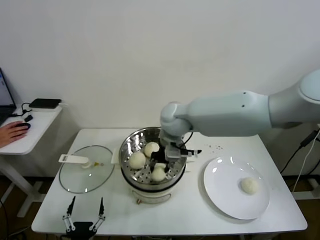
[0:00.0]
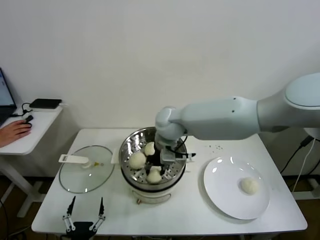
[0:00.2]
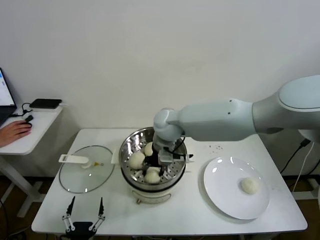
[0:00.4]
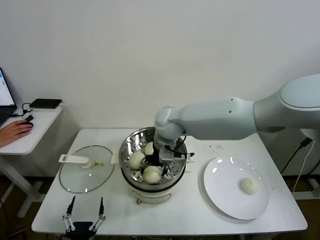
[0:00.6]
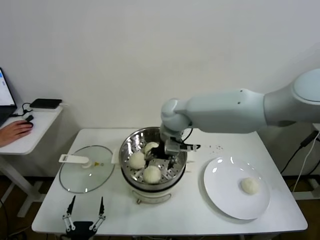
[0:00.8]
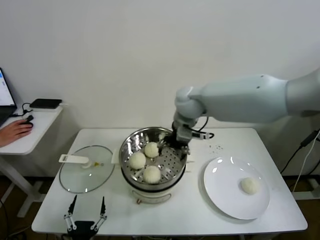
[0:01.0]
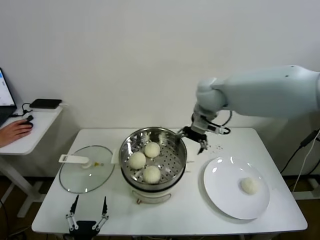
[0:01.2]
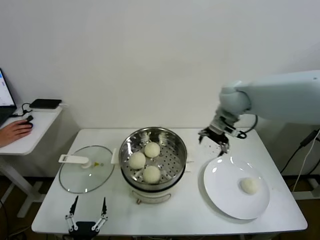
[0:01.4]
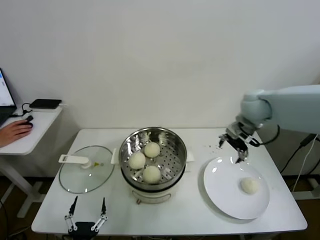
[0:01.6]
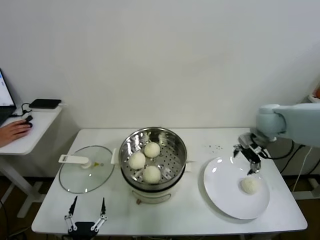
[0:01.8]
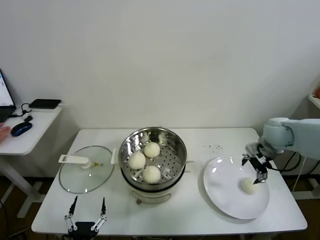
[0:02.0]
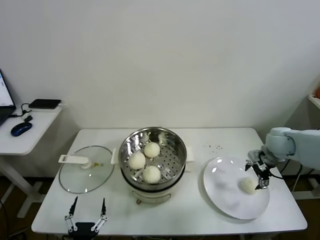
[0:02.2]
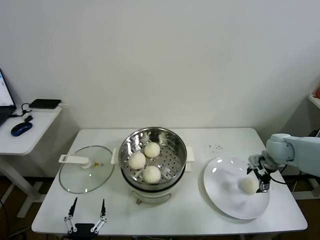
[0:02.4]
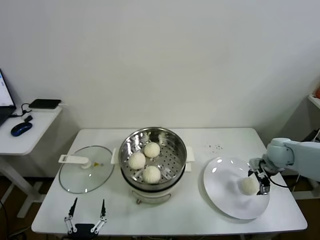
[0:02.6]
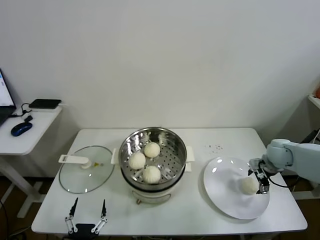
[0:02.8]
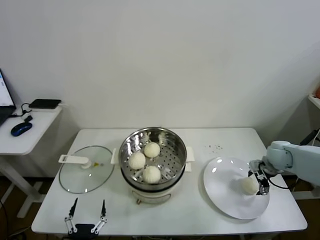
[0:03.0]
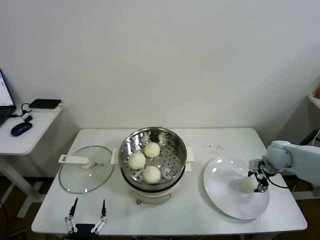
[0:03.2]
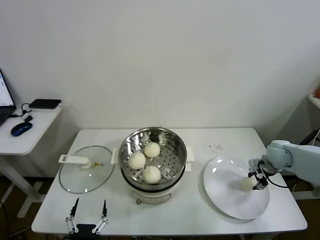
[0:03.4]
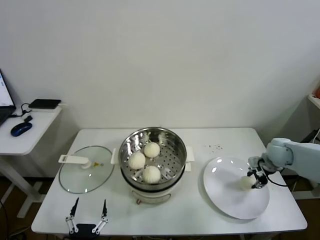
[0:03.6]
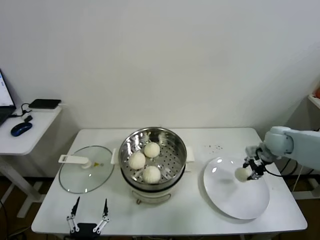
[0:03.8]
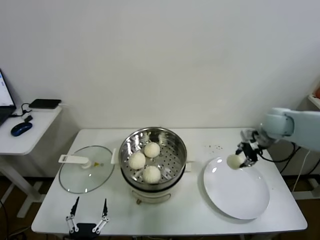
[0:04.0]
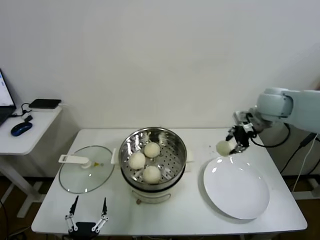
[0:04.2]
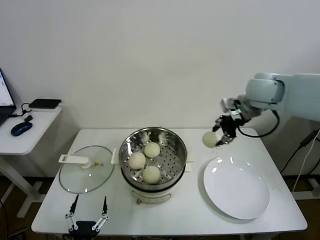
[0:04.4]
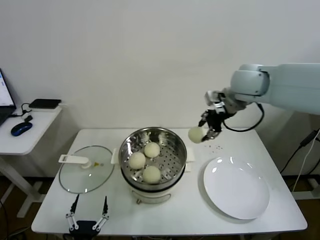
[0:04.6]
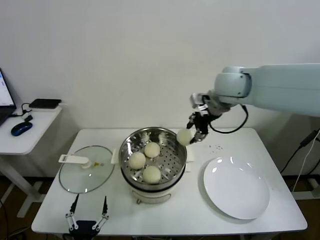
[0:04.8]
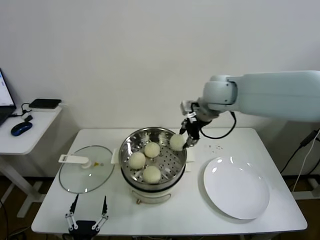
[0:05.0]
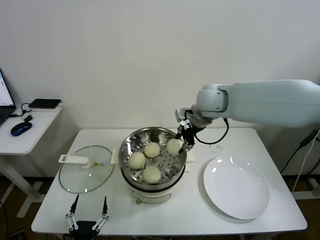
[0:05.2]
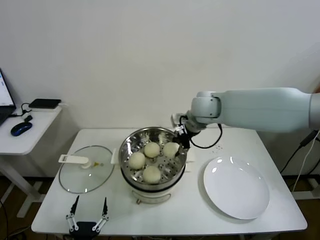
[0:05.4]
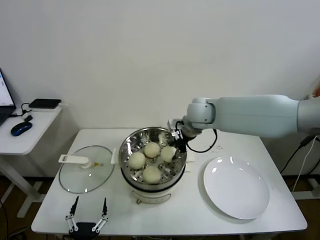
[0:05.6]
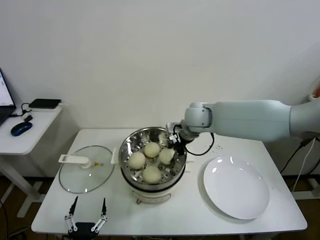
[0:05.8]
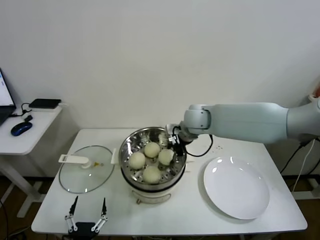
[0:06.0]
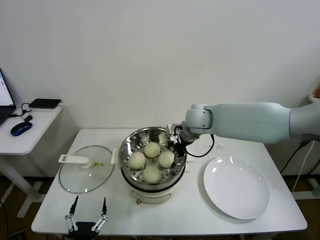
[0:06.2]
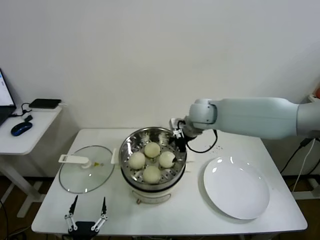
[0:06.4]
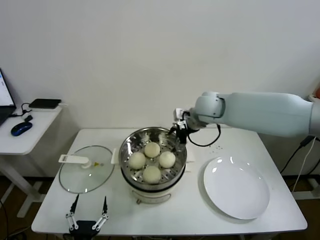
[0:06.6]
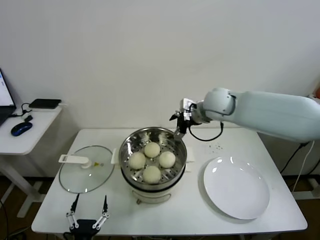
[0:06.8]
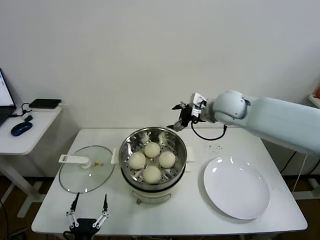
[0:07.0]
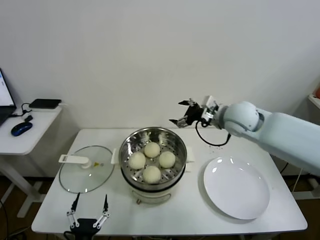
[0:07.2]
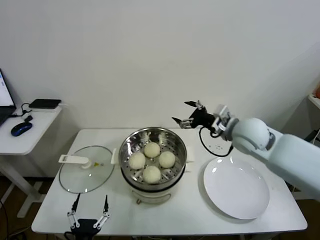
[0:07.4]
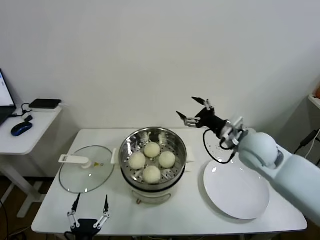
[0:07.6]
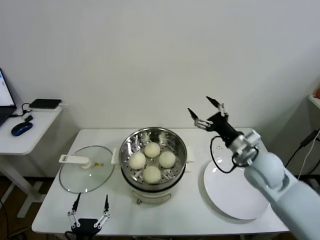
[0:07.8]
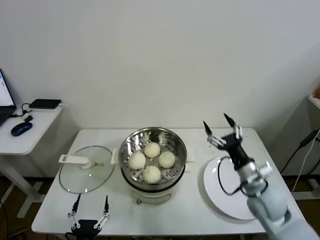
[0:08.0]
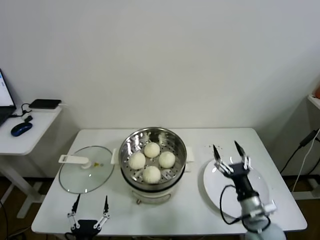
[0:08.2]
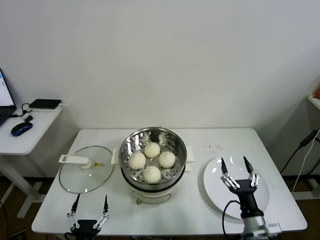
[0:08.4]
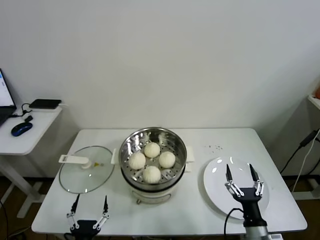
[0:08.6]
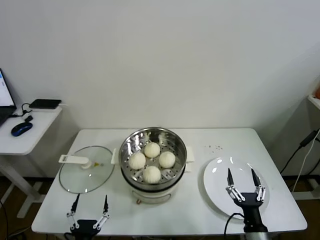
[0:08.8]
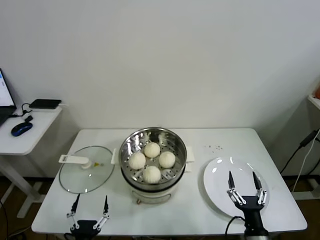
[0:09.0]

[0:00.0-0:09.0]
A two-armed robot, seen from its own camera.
Task of the whole recording: take steamed baozi put them in steamer.
Step, 0:01.0 to 0:03.4: Grasp the baozi in the plate with right gripper.
Step, 0:03.6 to 0:06.2: Place the baozi on the steamer with right gripper.
0:00.0 to 0:01.6: The right gripper travels to the right by roughly 25 cm, and opens up.
0:01.6 to 0:03.0: The right gripper travels downward and to the right by approximately 25 cm.
0:03.0 to 0:04.4: The right gripper moves upward and to the left, roughly 30 cm, and closes its fingers.
0:04.4 to 0:06.0: The right gripper is displaced to the left and downward by approximately 20 cm.
0:06.0 to 0:07.6: The right gripper is displaced to the right and backward by approximately 20 cm, and opens its fingers.
0:07.6 to 0:09.0: The right gripper shifts some 35 cm backward and downward.
